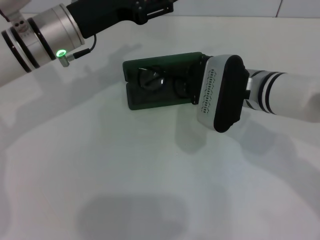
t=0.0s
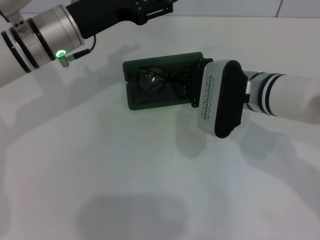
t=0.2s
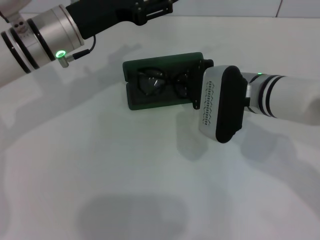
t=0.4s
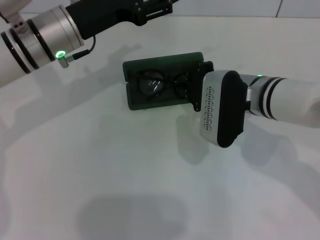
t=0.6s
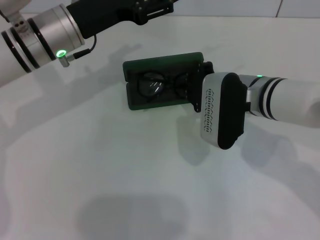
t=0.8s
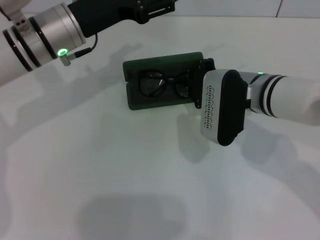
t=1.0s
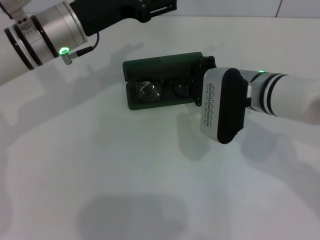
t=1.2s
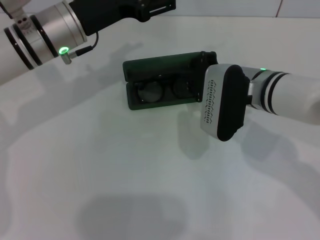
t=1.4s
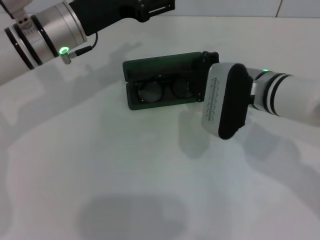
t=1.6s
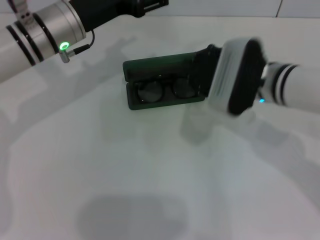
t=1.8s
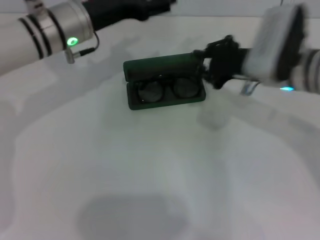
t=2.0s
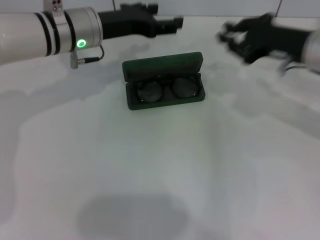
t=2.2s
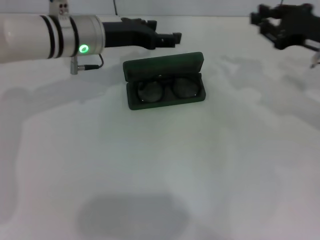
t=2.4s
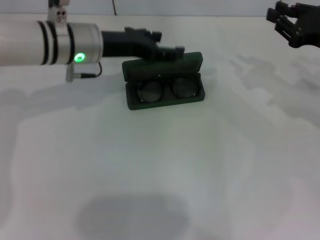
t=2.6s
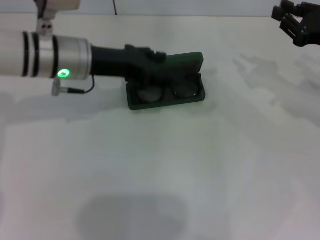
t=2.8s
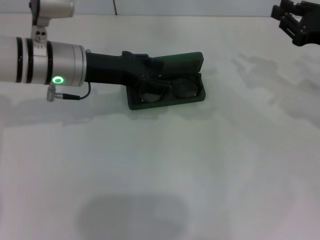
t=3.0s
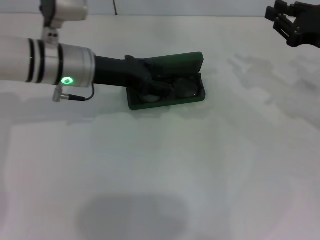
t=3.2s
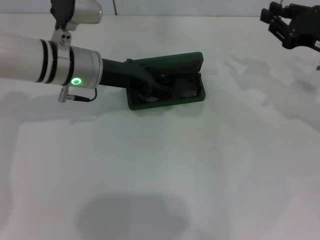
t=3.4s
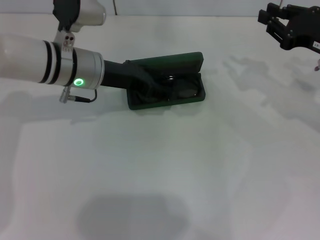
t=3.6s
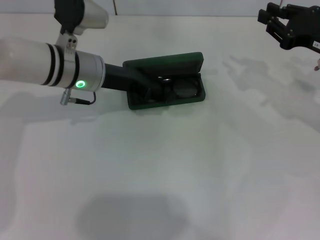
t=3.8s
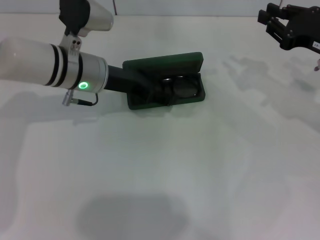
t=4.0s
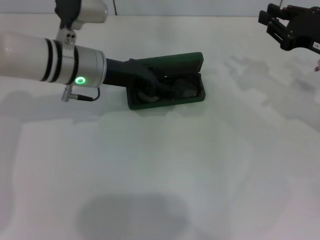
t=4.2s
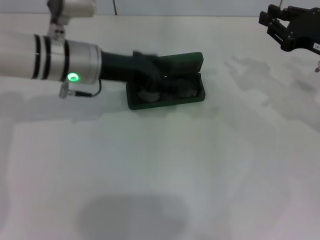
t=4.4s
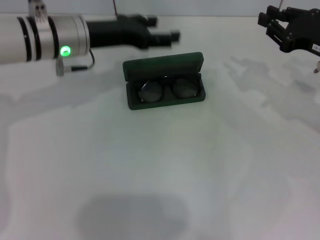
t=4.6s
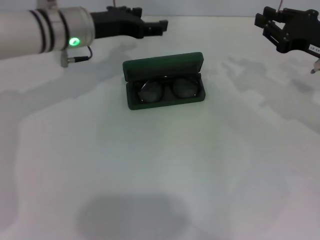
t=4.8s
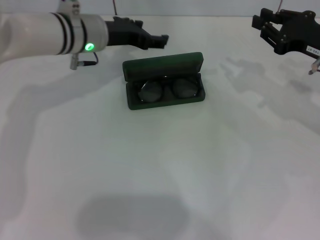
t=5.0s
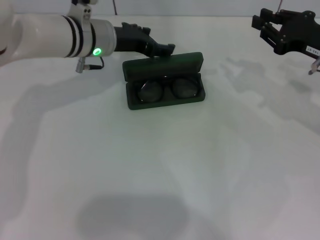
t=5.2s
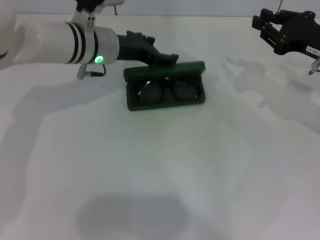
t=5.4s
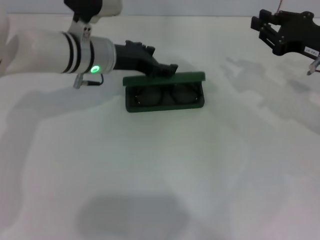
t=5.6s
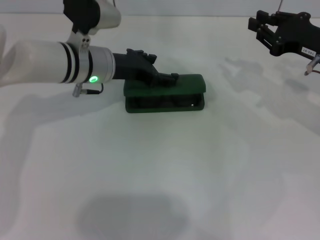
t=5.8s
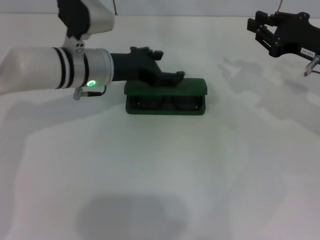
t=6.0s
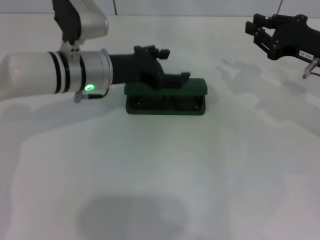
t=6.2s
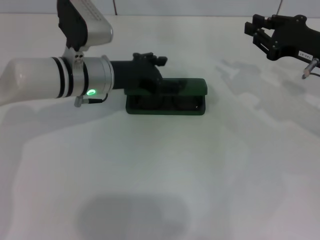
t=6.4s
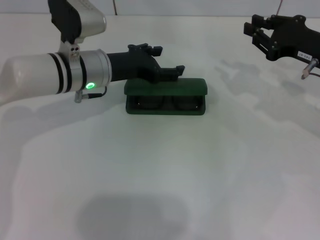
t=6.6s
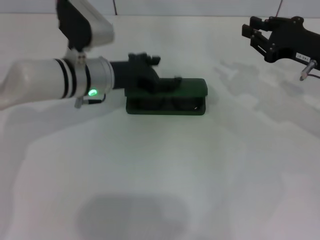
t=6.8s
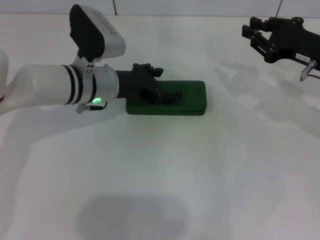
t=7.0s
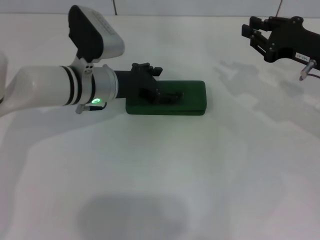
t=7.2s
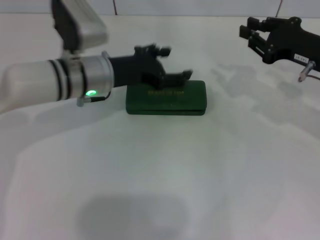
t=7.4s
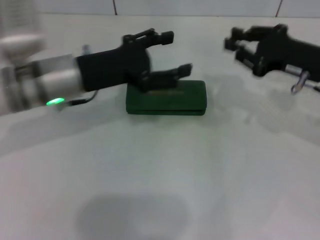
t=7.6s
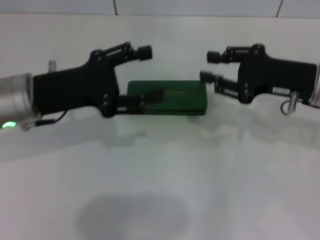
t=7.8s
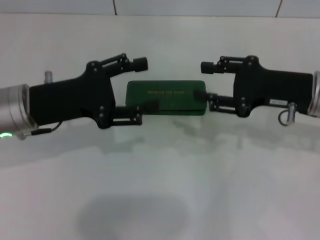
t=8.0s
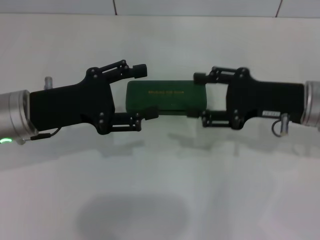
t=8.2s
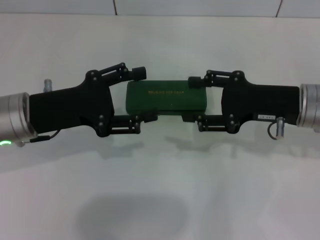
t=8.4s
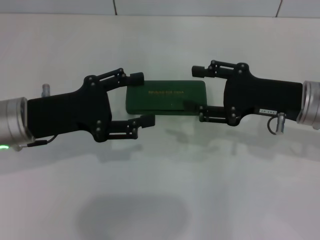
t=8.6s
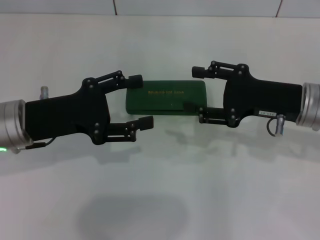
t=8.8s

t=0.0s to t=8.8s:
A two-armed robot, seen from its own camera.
Step, t=0.0s to t=7.0s: Close the glasses case with your left hand.
t=0.0s to t=1.4s: The grippers make only small movements.
t=1.4s to t=3.0s: The right gripper is displaced to the right by about 15 cm.
t=3.0s to t=4.4s: The grippers make only small movements.
t=5.8s to t=7.4s: The grippers make only small movements.
t=7.4s to t=8.8s: The right gripper changes place by approximately 5 cm, and opens up. Meanwhile the left gripper is displaced backward and to the left by some 15 cm.
